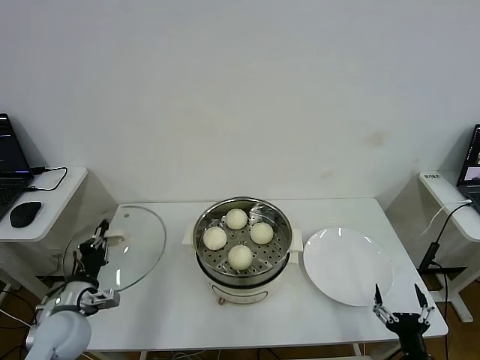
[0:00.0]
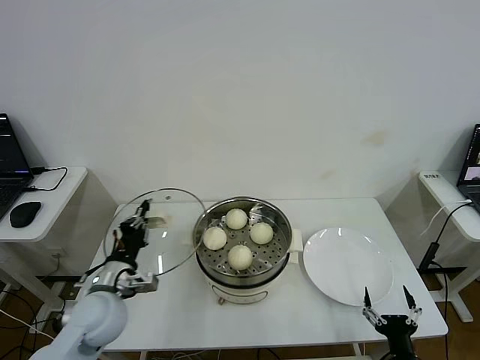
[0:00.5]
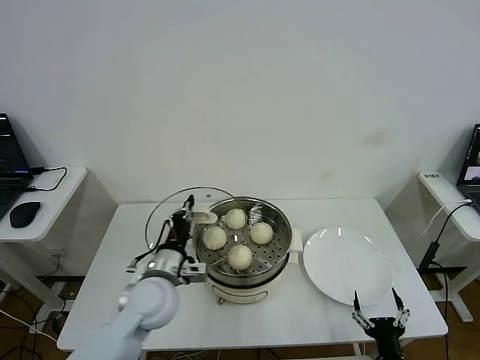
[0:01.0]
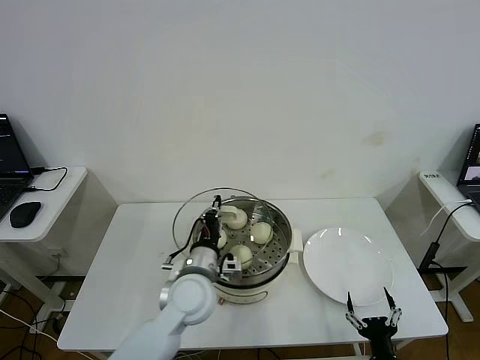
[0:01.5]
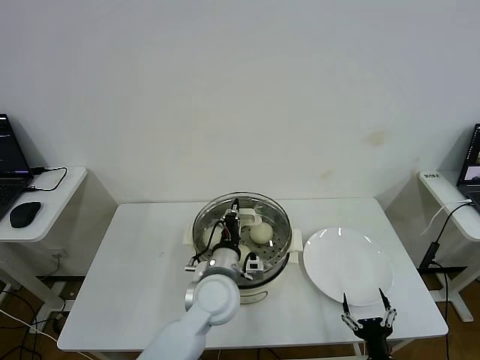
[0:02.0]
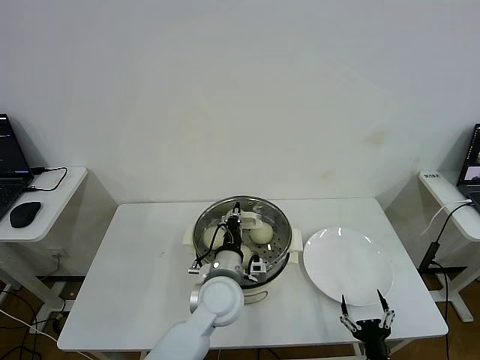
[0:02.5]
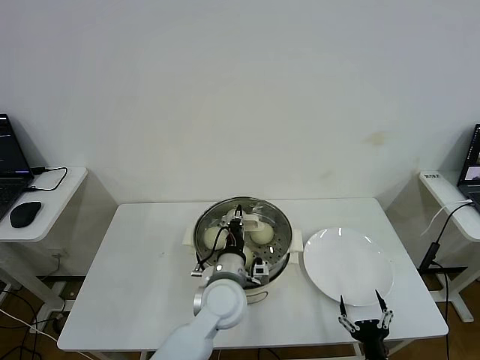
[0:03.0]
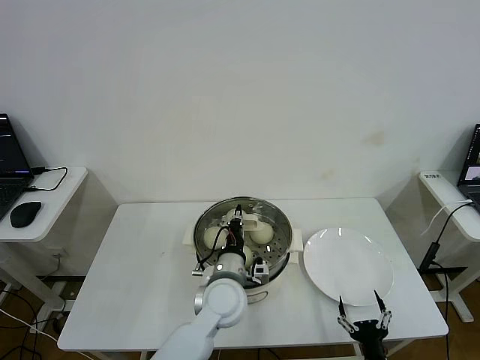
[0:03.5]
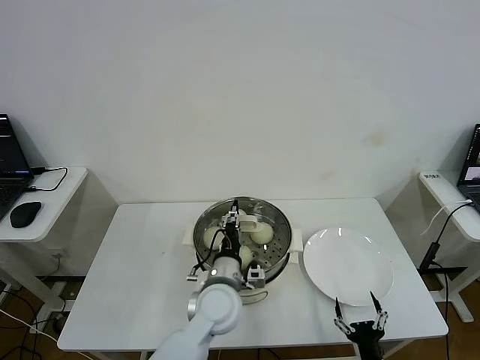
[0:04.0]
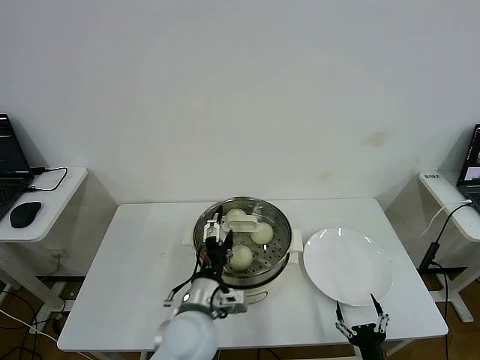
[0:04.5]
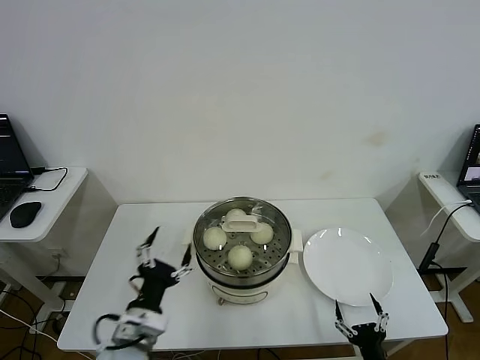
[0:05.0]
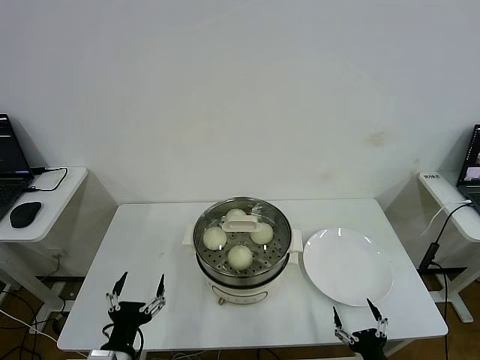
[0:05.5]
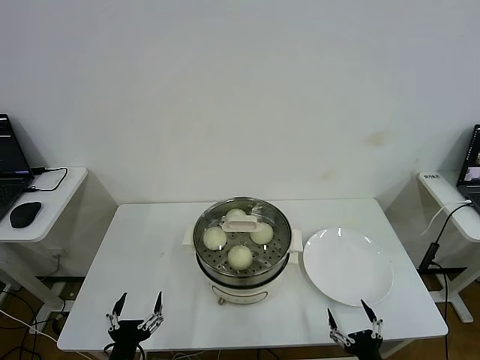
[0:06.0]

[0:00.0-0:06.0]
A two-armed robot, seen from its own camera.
Step, 0.0 to 4.0 s: Place the pot lid on the steamer with left gripper.
0.0 to 2.0 s: The left gripper travels to the right by roughly 30 cm, while the right gripper shifts about 5 cm to the left.
2.0 to 4.0 s: The left gripper opens its fingers.
4.0 to 6.0 s: The left gripper heads to the left and backward, covering roughly 30 cm, and opens up.

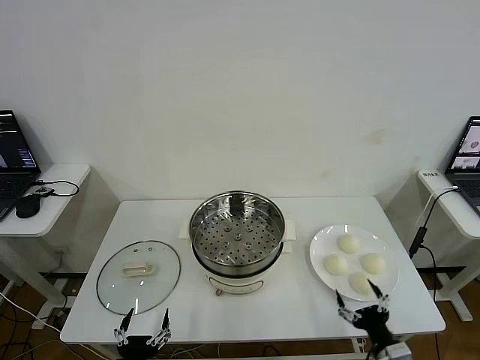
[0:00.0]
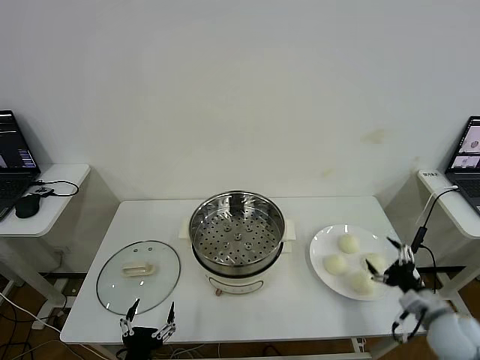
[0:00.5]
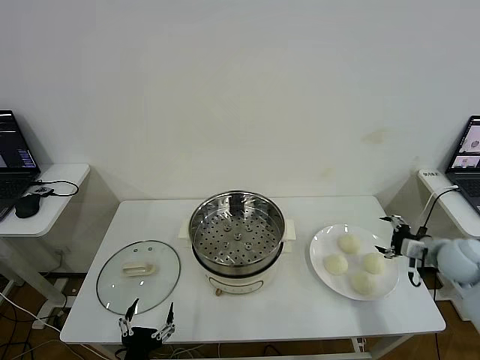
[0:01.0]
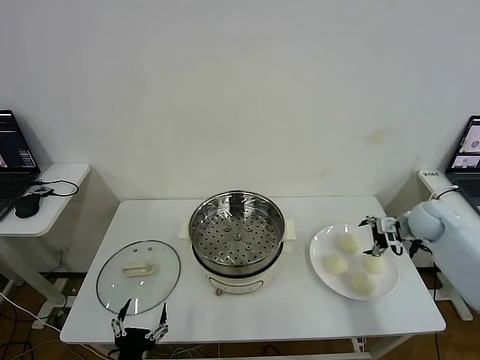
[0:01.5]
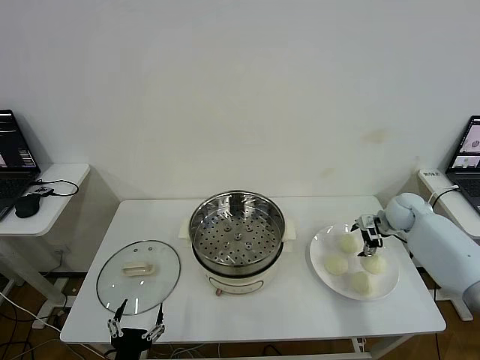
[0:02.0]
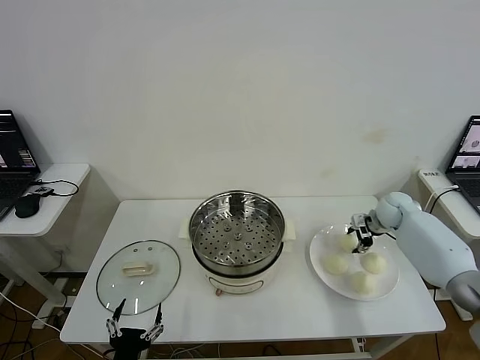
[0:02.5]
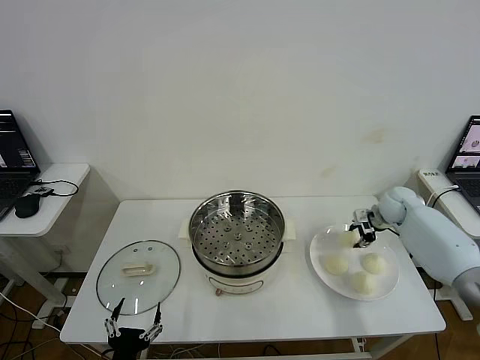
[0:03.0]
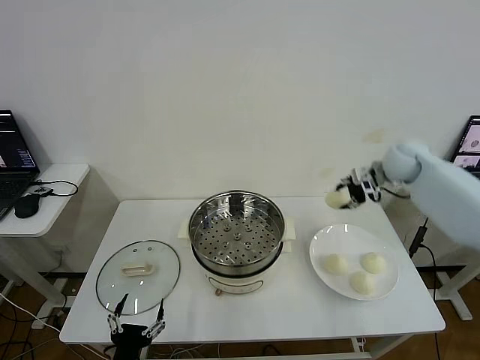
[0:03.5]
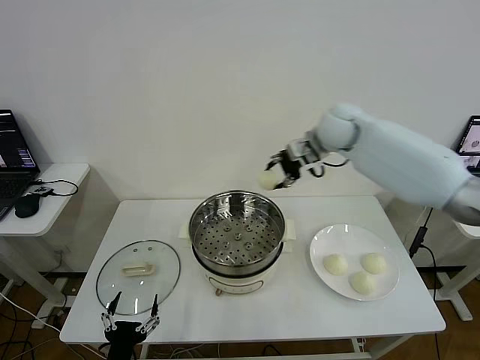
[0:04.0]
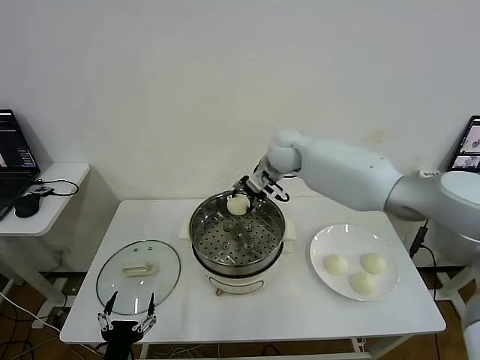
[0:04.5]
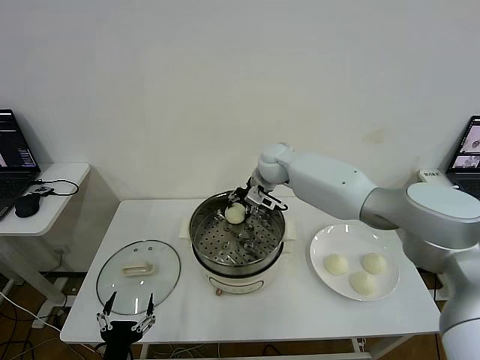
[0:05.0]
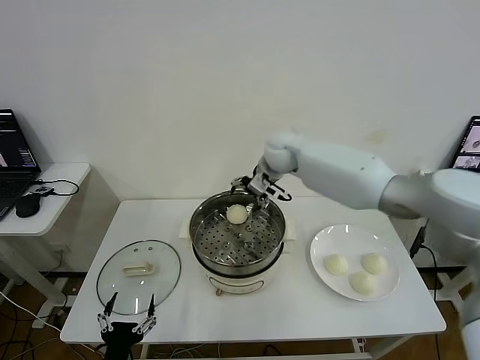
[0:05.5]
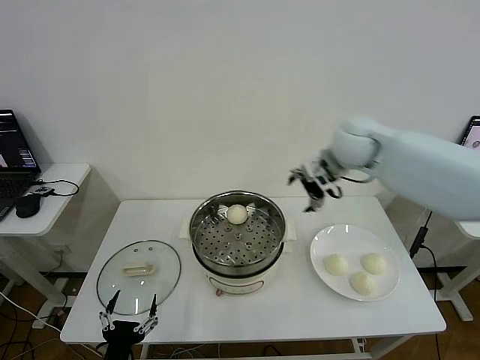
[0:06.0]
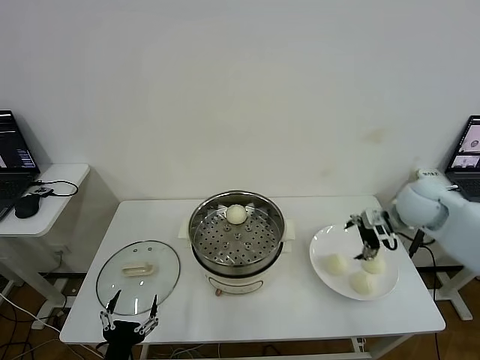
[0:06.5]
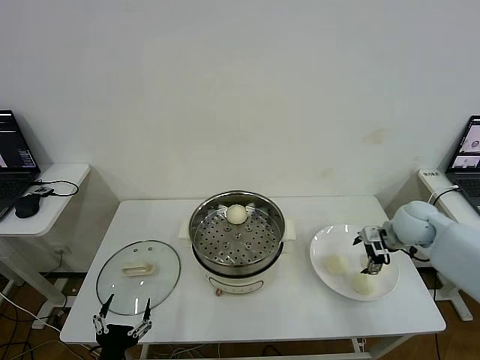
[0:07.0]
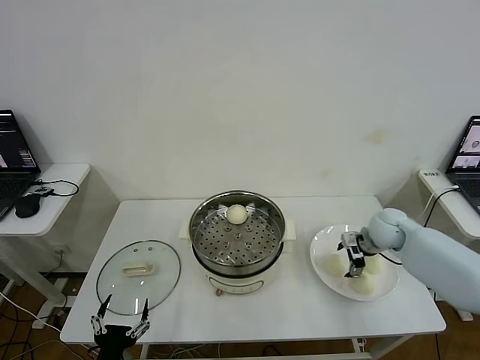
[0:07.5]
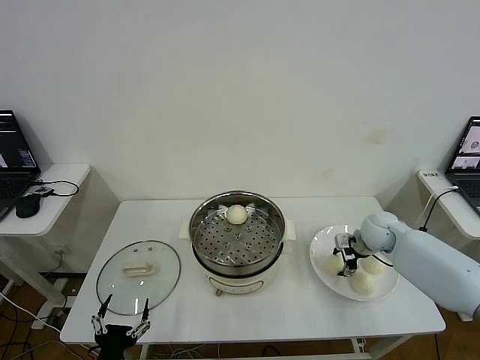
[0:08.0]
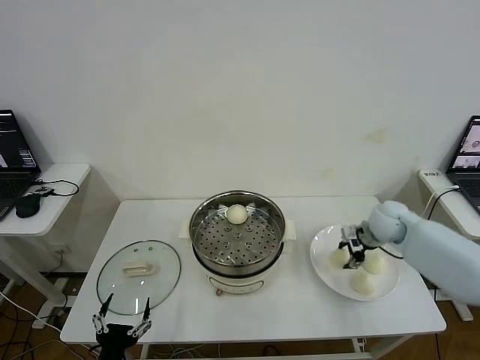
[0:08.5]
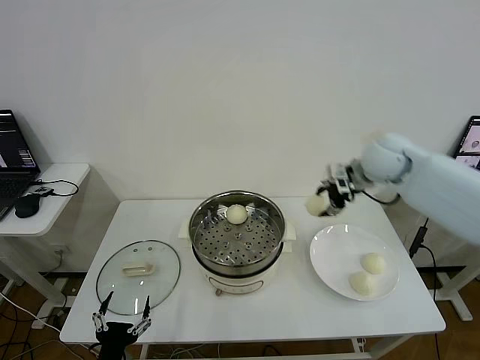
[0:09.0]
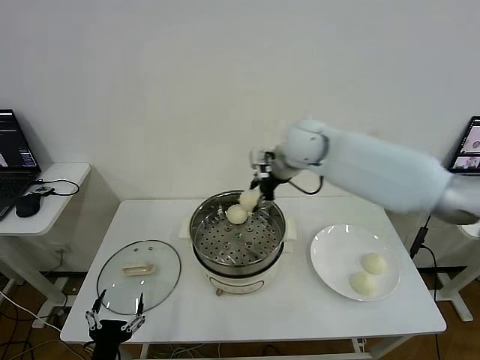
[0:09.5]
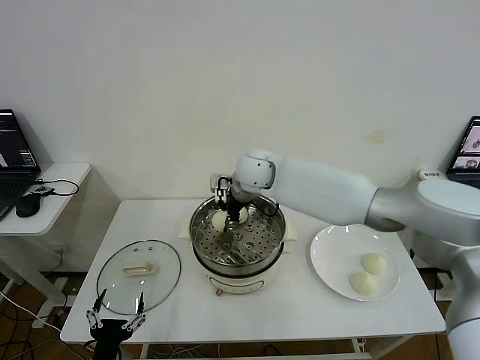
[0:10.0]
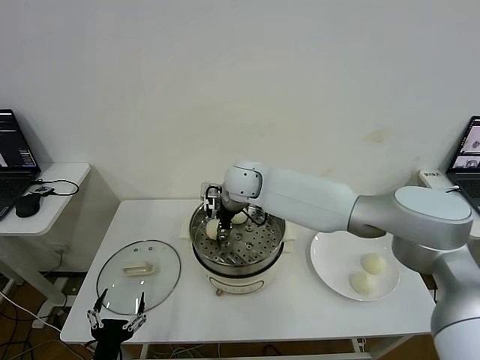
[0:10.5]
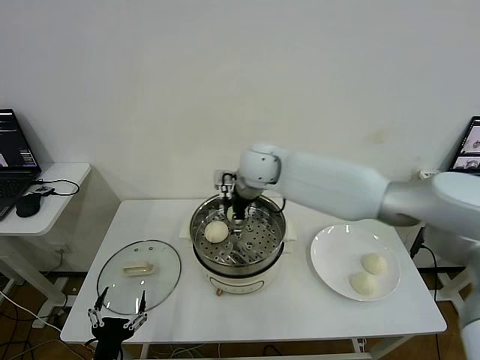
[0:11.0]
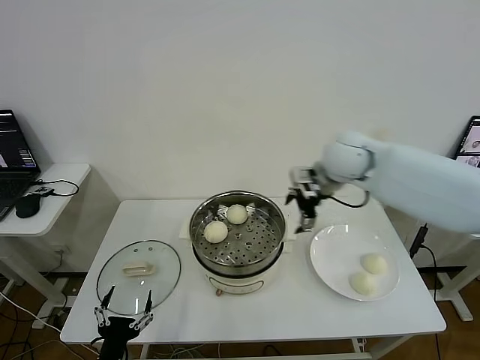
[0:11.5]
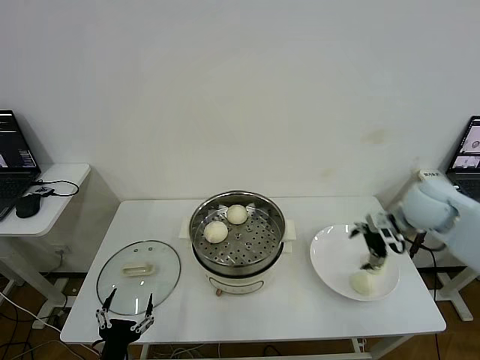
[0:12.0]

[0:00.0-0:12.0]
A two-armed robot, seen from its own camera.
Step, 0.0 to 2.5 s: Grasp the baozi in the plate with right gripper.
Step, 3.0 to 5.0 s: Place the baozi on the steamer with right gripper.
Step, 5.5 to 8.0 s: Grasp the baozi in the plate with right gripper.
Step, 8.5 to 10.5 s: Place the baozi on the steamer with right gripper.
2.0 to 4.0 s: The right gripper heads to the left and upward, covering roughly 35 cm, and closes up.
4.0 to 6.0 s: The right gripper travels to the right and backward by approximately 15 cm, and opens.
6.0 to 8.0 s: The right gripper goes approximately 20 cm downward, and closes.
8.0 to 10.0 s: The right gripper is displaced to the left and upward by about 35 cm.
10.0 to 12.0 s: The right gripper heads to the right, covering some 35 cm, and opens.

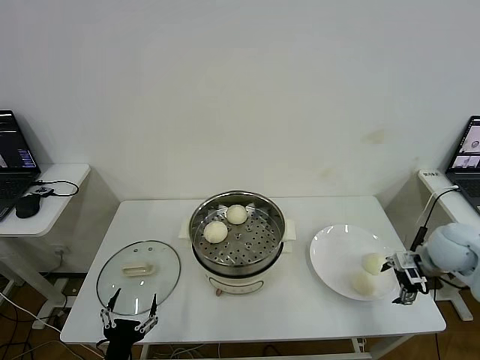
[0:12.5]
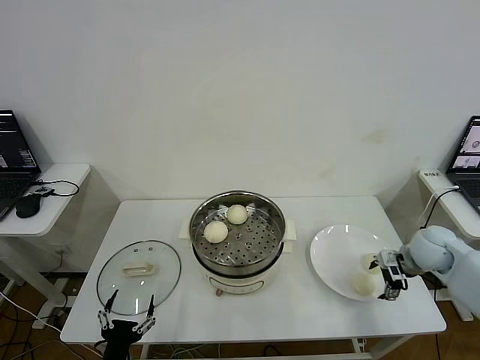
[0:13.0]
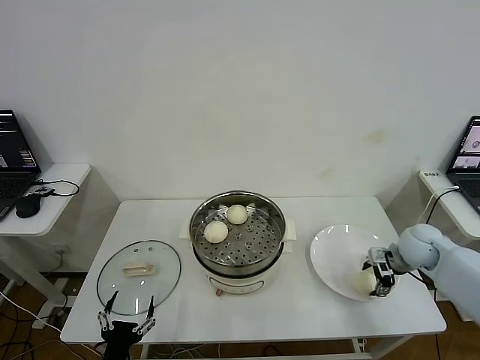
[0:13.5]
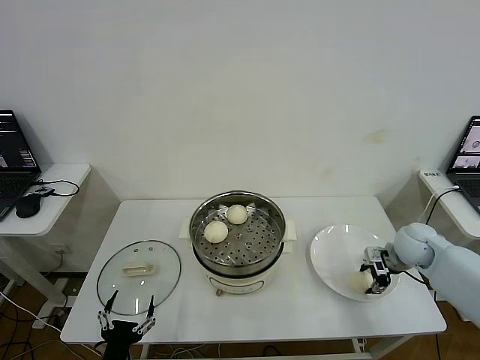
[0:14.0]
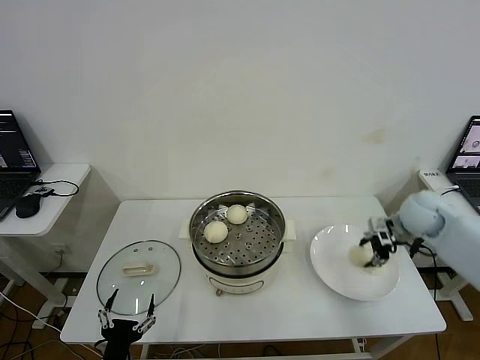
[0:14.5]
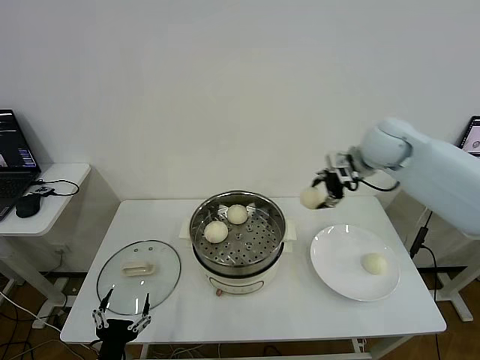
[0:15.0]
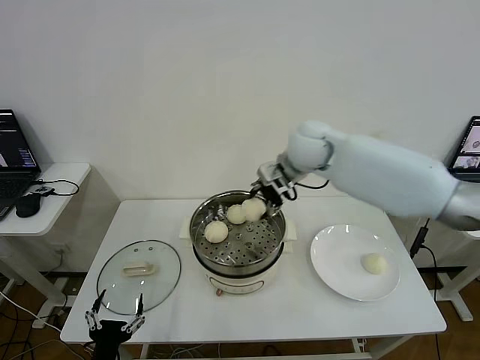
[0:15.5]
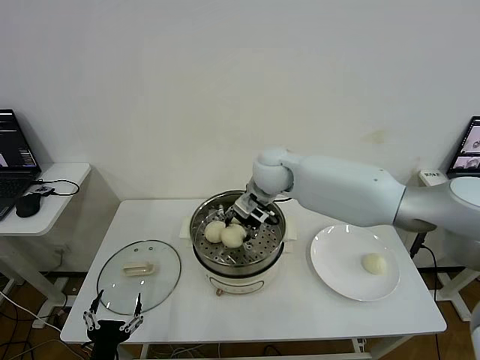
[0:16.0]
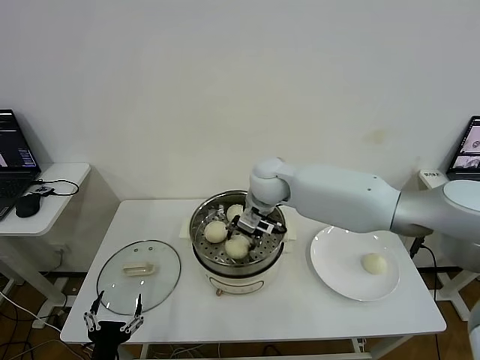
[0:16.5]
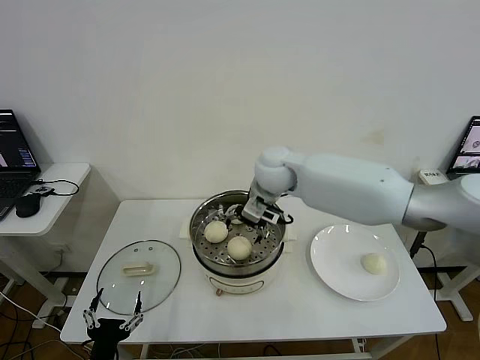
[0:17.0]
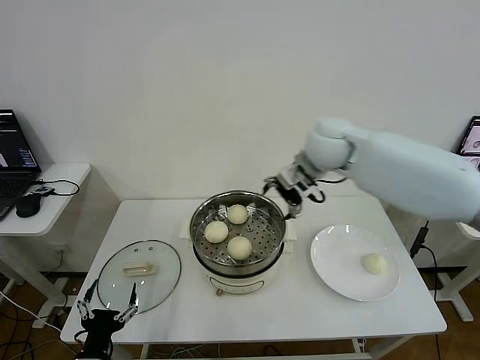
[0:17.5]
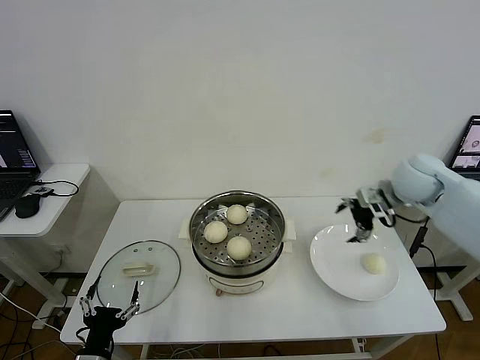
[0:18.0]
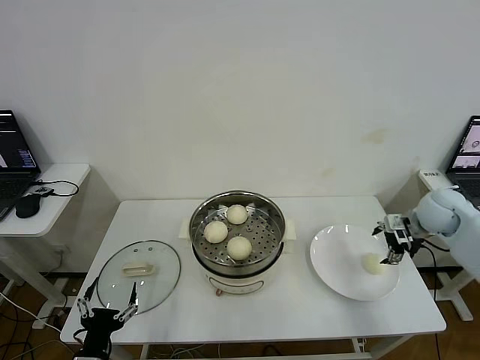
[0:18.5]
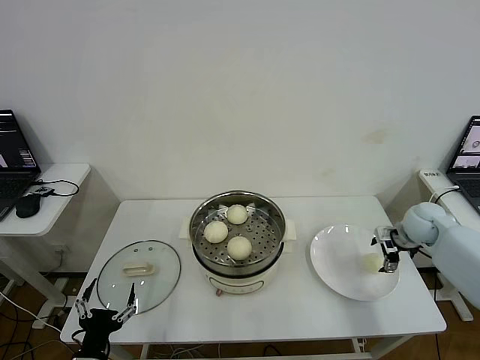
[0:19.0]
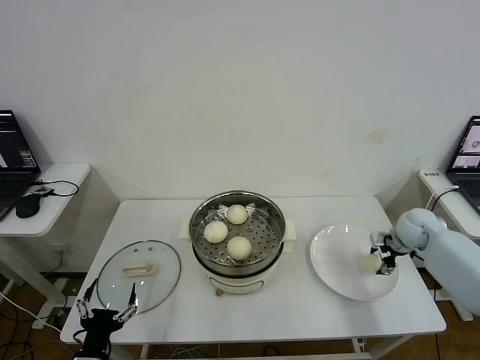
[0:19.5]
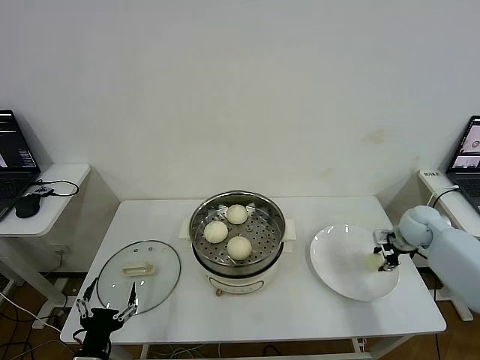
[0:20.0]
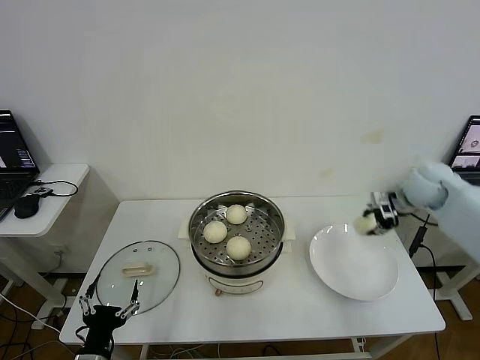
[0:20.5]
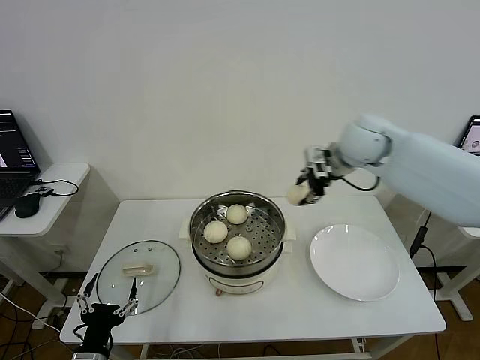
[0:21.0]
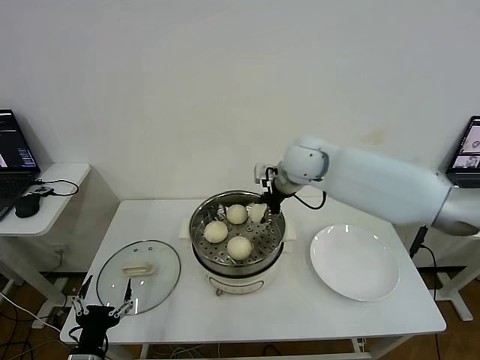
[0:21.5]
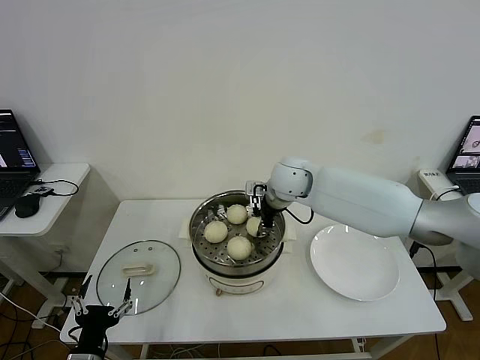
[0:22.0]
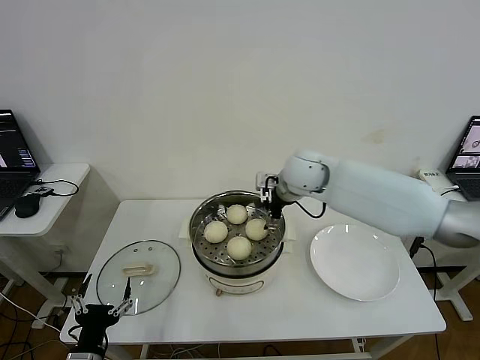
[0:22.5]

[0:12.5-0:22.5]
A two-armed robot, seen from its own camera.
Step, 14.0 to 16.5 s: Place the baozi on the steamer with right gripper.
Step, 17.0 to 19.5 s: Grasp the baozi in the plate with right gripper.
Step, 20.0 to 22.0 s: Place the baozi on the steamer with right gripper.
12.5 to 14.5 s: The right gripper moves forward and upward, roughly 10 cm, and closes.
14.5 to 16.5 s: The right gripper moves to the left, about 35 cm.
16.5 to 18.5 s: The right gripper heads to the right, covering about 40 cm, and opens.
18.5 to 20.5 s: The right gripper shifts roughly 10 cm upward and to the left, and closes its fingers.
20.5 to 22.5 s: The right gripper heads to the left, covering some 25 cm, and opens.
